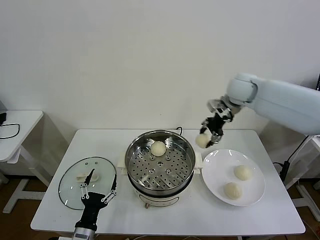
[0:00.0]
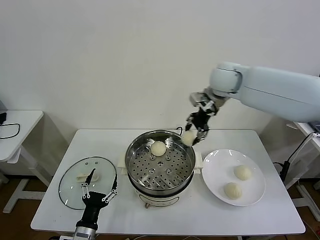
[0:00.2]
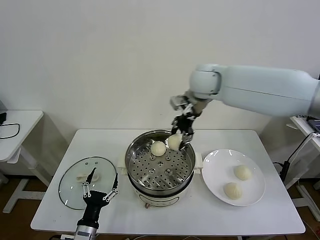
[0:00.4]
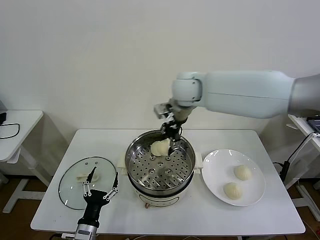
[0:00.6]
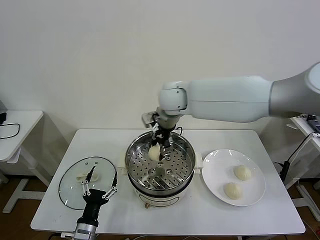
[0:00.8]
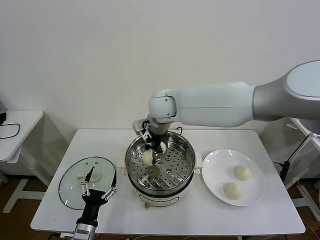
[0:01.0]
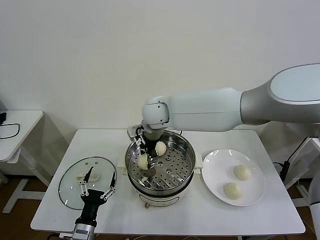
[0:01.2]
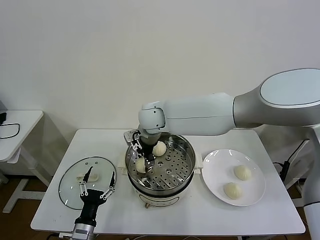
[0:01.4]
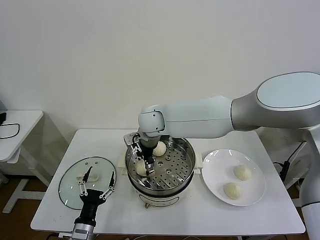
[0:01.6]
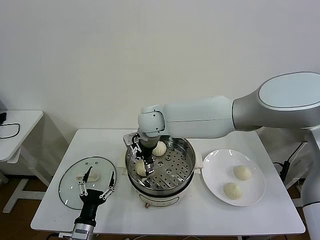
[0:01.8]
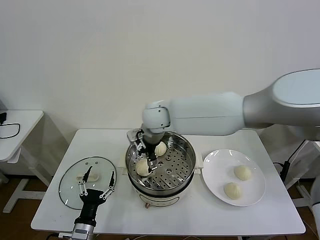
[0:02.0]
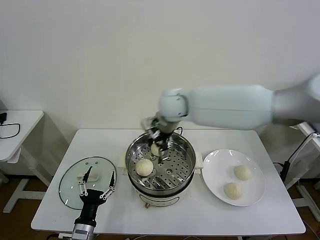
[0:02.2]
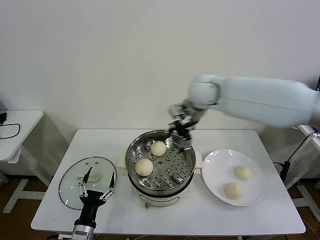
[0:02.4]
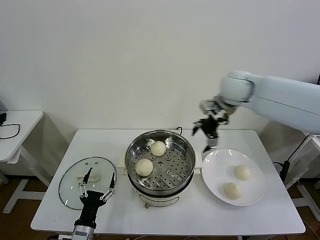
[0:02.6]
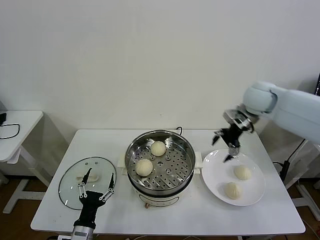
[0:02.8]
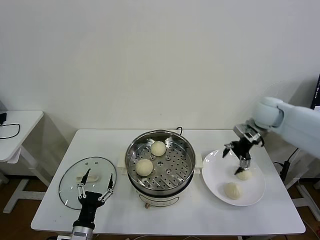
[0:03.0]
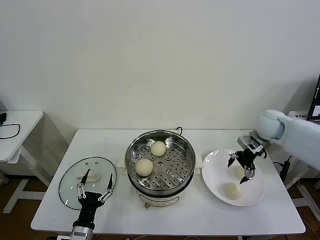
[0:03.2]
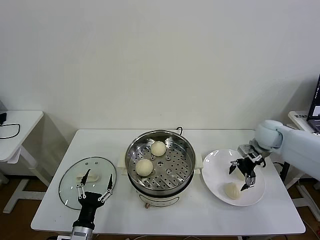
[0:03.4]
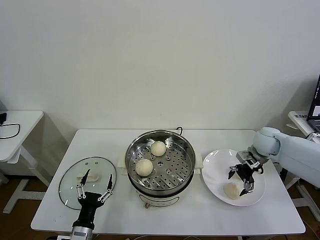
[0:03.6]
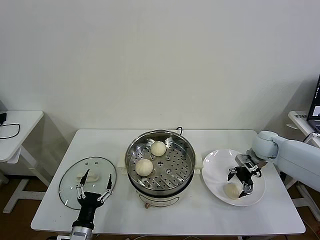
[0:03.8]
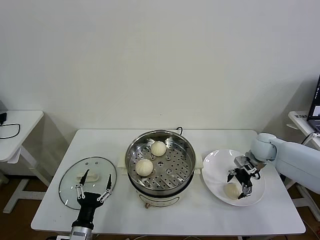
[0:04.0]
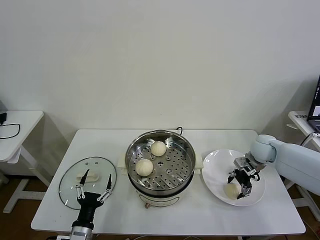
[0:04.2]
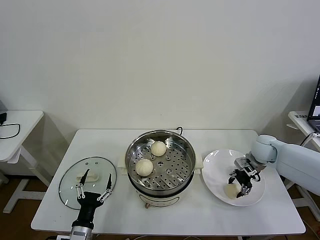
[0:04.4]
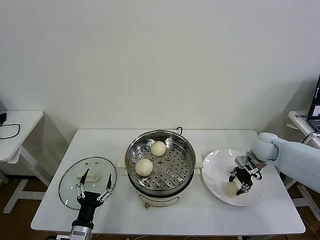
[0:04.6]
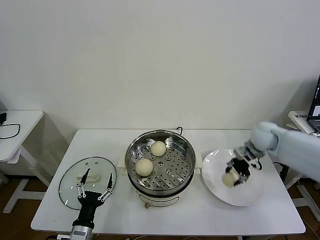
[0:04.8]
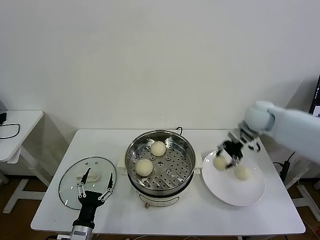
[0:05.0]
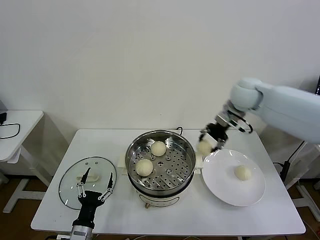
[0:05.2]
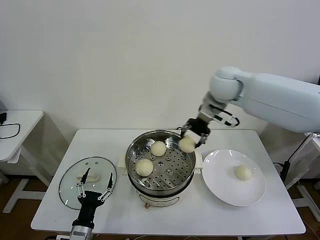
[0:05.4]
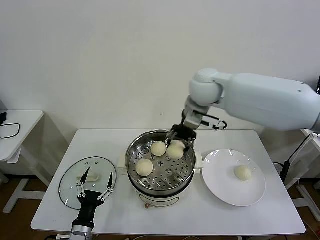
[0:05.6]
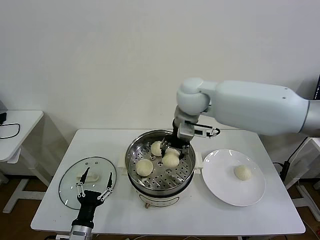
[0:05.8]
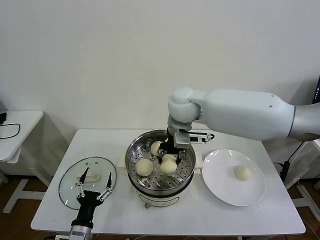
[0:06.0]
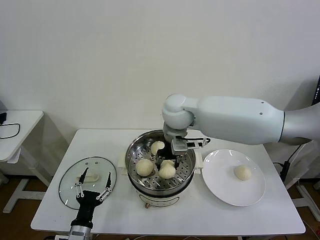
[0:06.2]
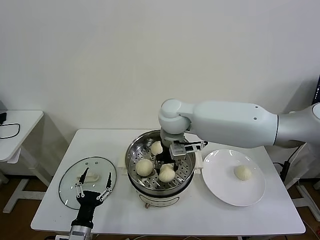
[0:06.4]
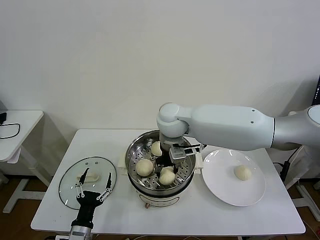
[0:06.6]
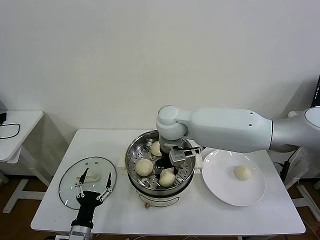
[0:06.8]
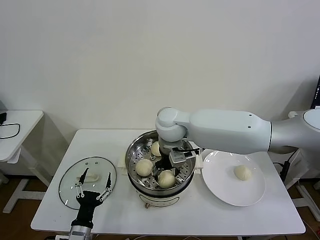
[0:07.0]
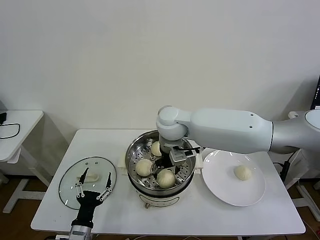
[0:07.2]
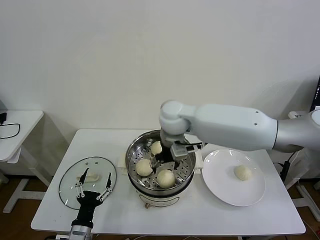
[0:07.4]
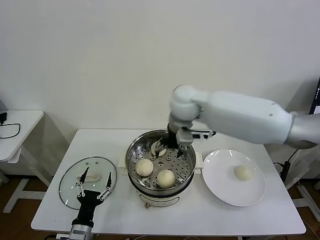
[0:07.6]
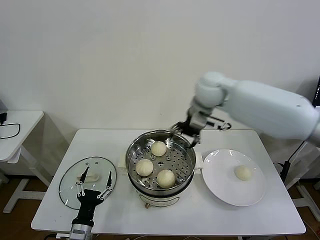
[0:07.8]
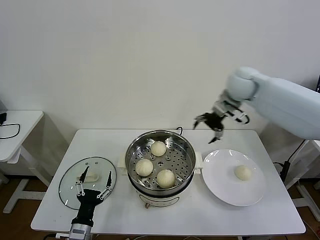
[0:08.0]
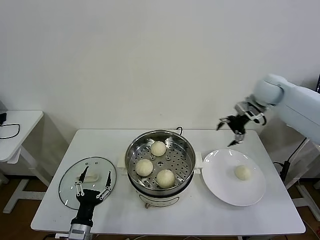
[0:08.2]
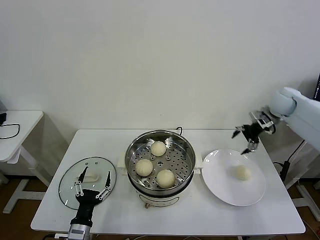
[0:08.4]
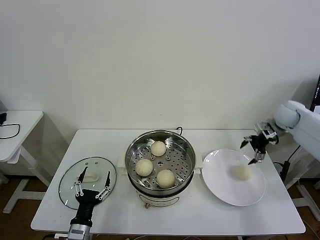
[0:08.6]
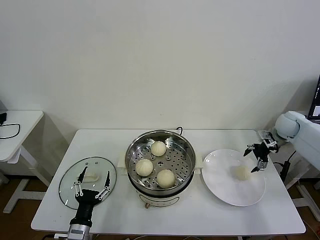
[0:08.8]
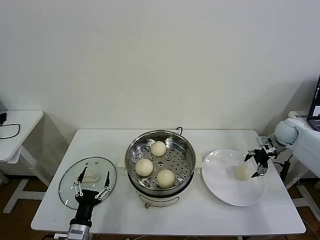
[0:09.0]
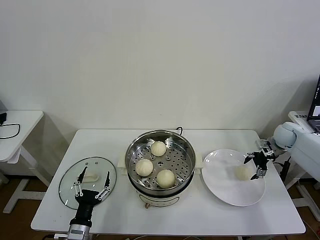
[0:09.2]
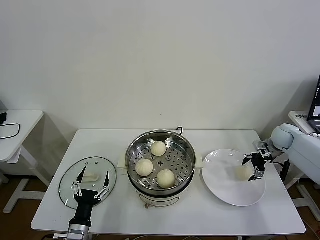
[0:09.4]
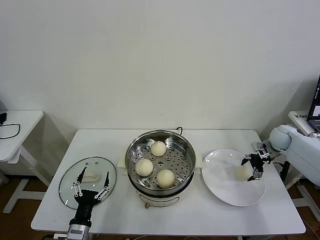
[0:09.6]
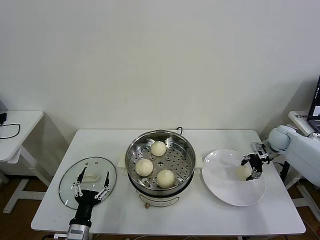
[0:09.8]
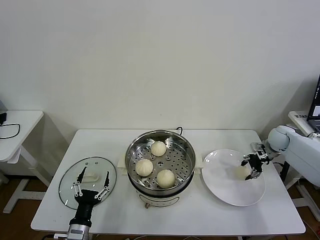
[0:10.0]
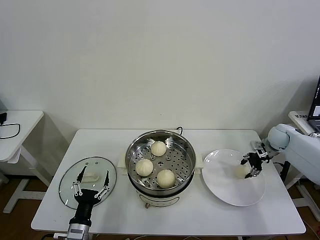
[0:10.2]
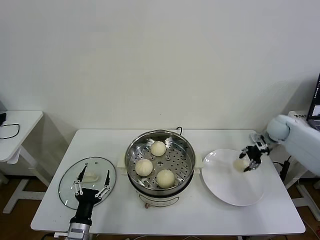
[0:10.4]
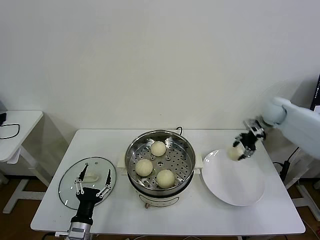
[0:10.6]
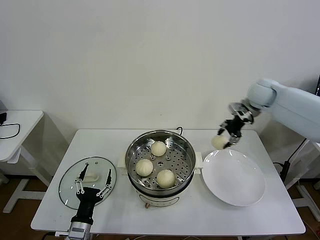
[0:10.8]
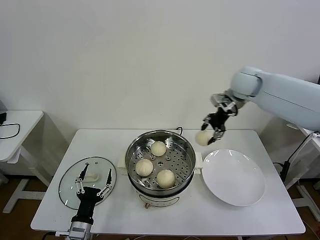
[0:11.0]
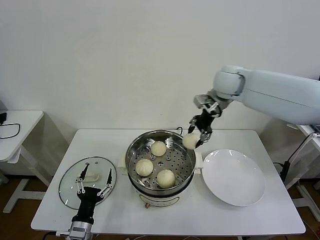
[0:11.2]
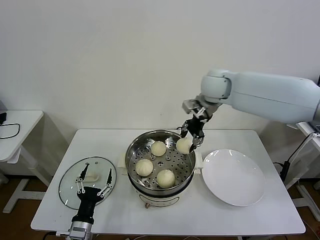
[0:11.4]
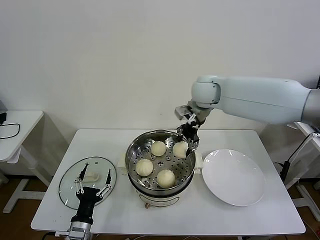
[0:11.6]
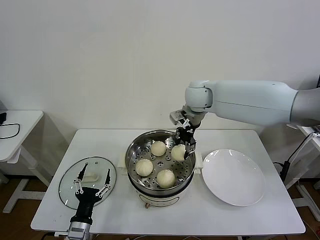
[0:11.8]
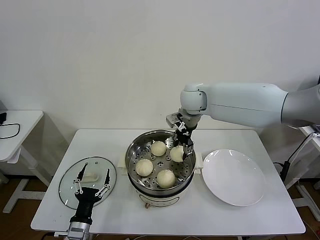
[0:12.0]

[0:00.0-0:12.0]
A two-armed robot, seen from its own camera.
Task of the whole recording: take steamed baozi put them in steamer then cover it.
Step, 0:00.0 to 0:02.2: Place the baozi on the steamer with right gripper.
Step, 0:02.4 to 0:04.6: Grasp the baozi in the plate with right gripper.
Step, 0:04.8 to 0:07.6: Place the baozi on the steamer with right gripper.
Step, 0:07.8 to 0:10.2: Grasp the baozi in the plate with right gripper.
0:00.0 to 0:01.6: The right gripper shifts roughly 30 cm to the left, and opens up.
0:01.6 to 0:03.0: The right gripper goes some 40 cm to the right.
0:03.0 to 0:04.4: The right gripper heads downward, covering approximately 15 cm, and closes.
0:04.4 to 0:06.0: The right gripper heads to the left and upward, covering about 35 cm.
0:06.0 to 0:07.6: The right gripper opens up.
0:07.6 to 0:09.0: The right gripper travels to the right by approximately 40 cm.
0:09.0 to 0:10.4: The right gripper closes.
0:10.4 to 0:12.0: The right gripper goes about 35 cm to the left.

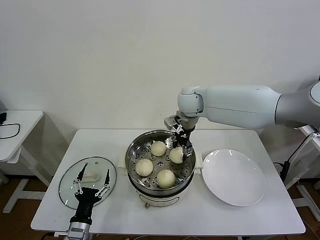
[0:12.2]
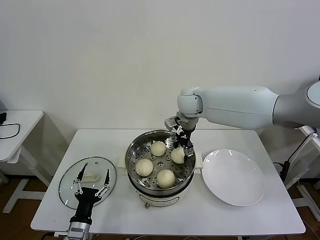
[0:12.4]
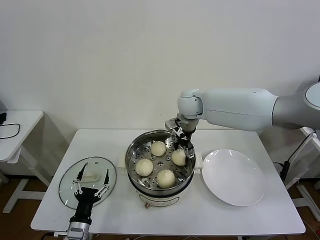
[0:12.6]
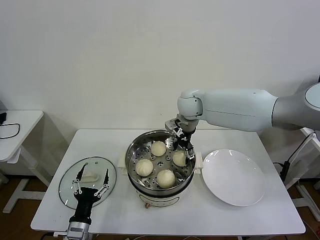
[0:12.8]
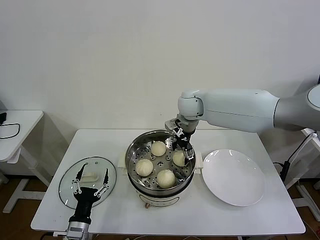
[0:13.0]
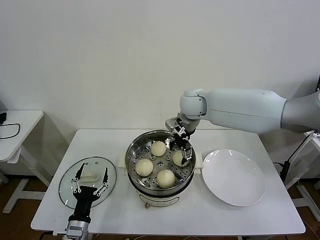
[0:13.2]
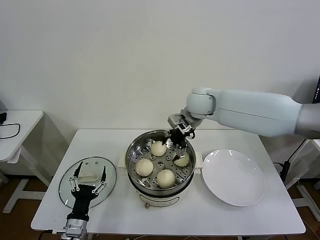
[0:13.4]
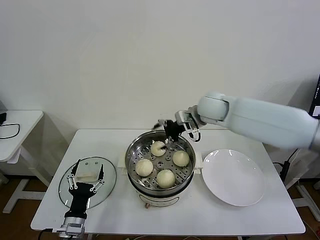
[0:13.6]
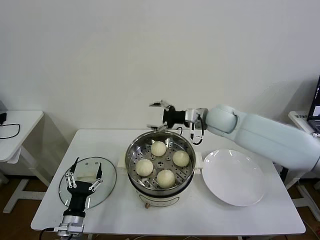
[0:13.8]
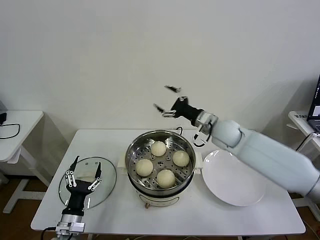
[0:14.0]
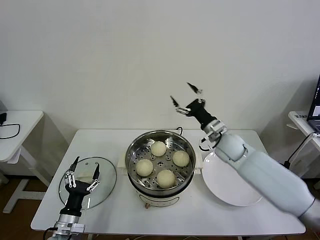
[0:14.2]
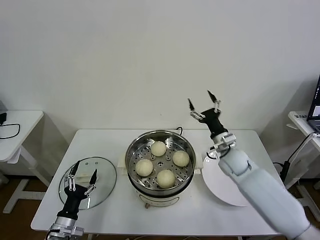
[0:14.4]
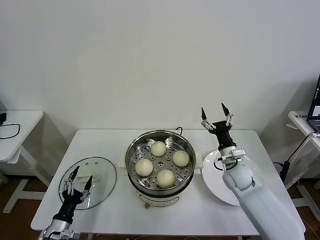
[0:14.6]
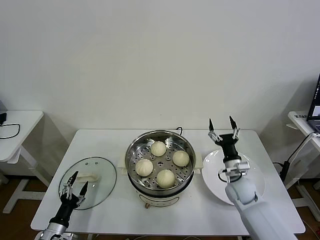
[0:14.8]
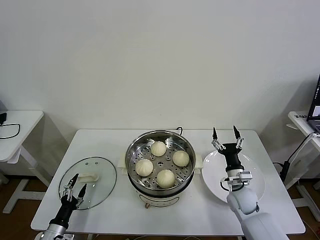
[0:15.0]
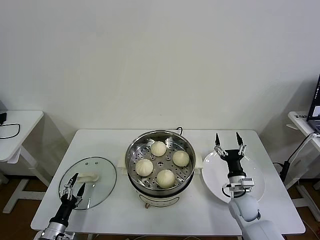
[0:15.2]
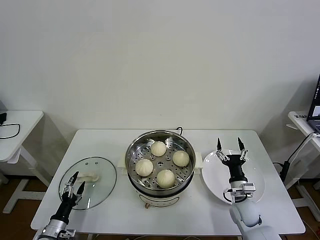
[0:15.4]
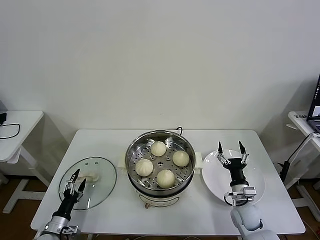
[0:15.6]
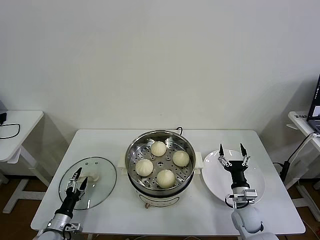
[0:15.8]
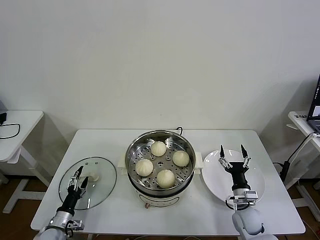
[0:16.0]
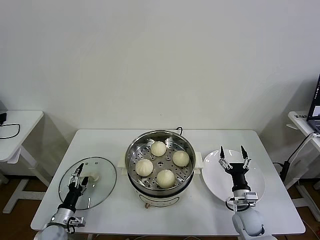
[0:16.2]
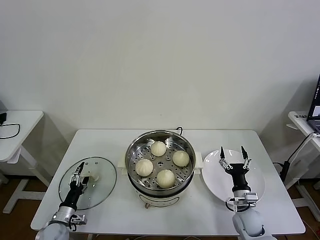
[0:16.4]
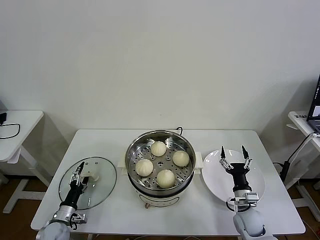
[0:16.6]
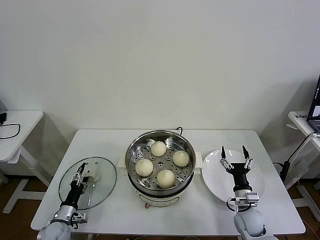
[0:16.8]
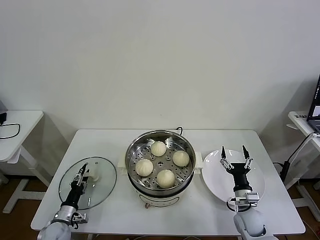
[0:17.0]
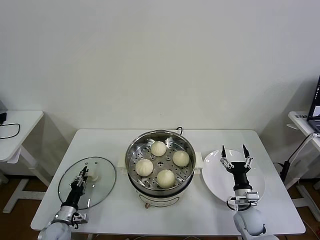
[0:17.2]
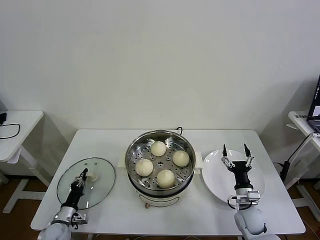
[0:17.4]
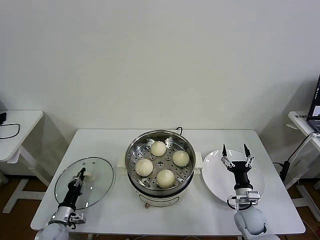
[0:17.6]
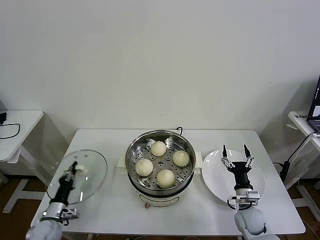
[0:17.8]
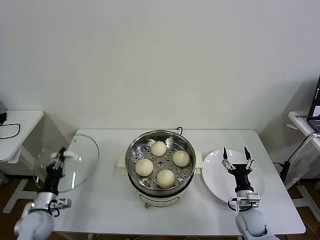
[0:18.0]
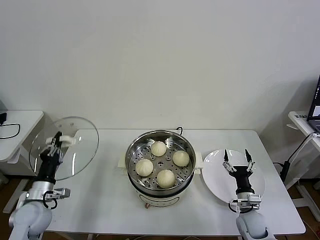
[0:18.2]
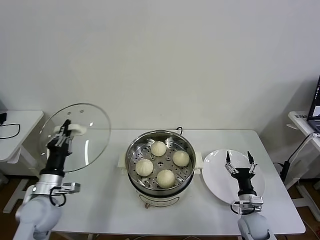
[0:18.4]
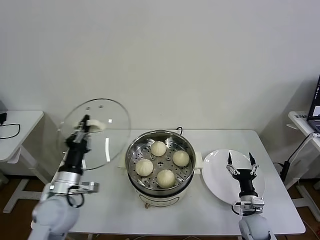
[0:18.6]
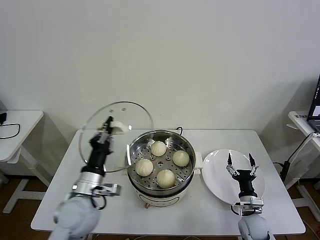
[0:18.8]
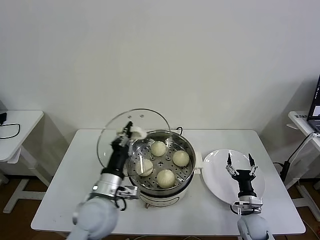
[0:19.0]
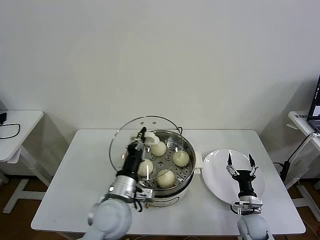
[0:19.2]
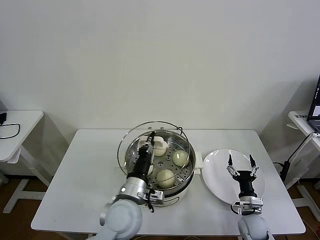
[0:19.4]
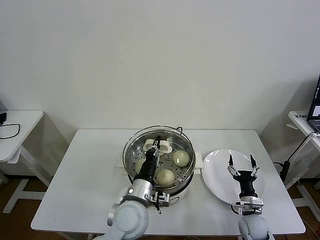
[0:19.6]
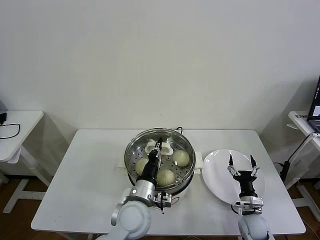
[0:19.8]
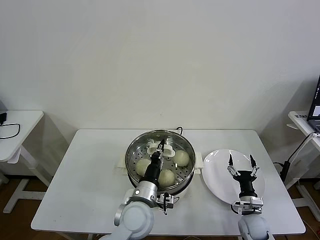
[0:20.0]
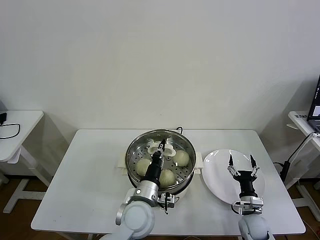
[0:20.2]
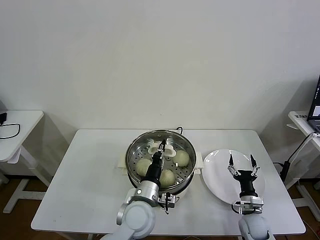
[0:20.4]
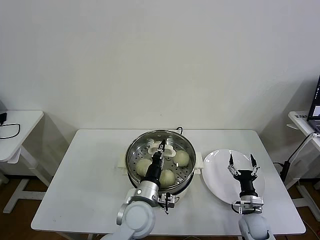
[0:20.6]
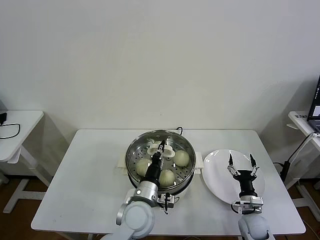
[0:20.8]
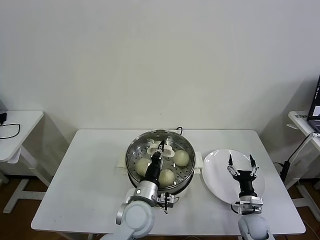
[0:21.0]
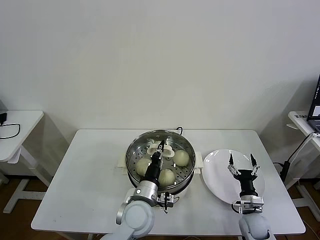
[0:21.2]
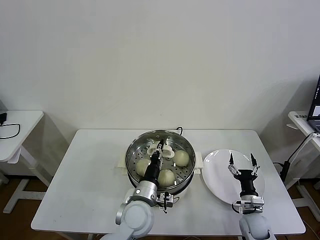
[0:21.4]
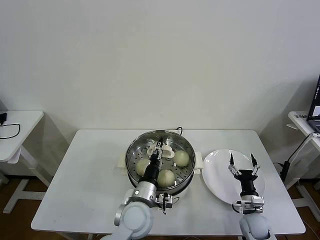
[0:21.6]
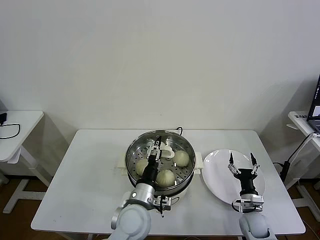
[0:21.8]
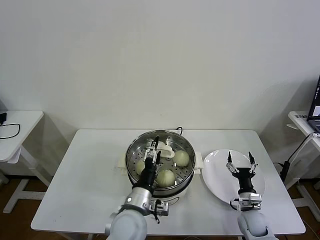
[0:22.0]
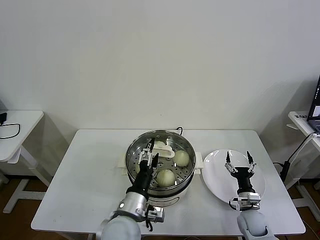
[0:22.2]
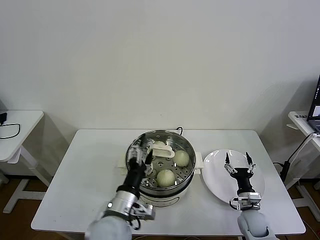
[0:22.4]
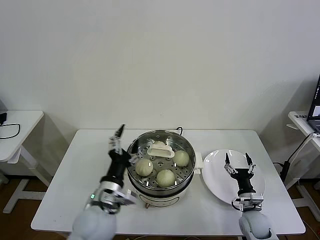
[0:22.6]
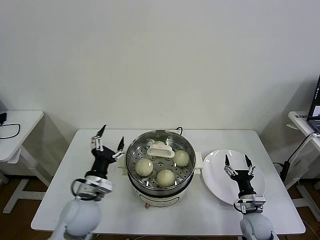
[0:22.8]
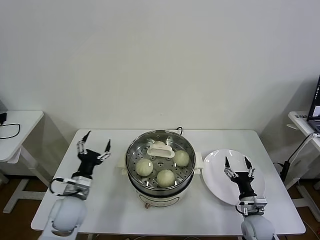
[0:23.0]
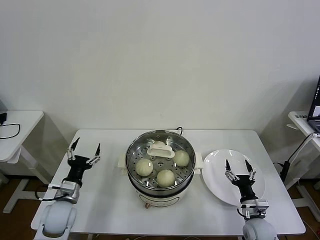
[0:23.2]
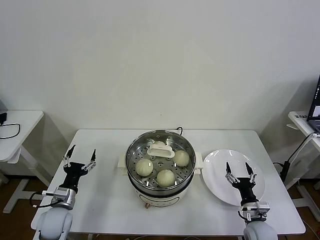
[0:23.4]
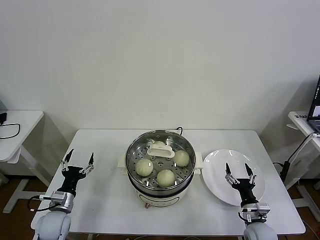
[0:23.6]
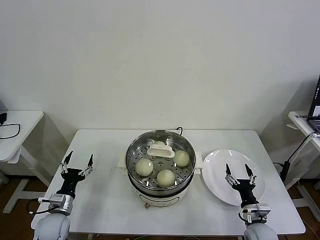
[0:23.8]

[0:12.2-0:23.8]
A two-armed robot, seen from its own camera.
Task of the whole recording: take steamed baozi put them in steamer then cover it.
Step, 0:13.6 to 0:17.4: Grasp the pot lid with left gripper.
Step, 0:17.6 to 0:22.2: Place the pot lid on the steamer with left gripper.
0:12.2 to 0:13.6: The right gripper is displaced to the right by roughly 5 cm, and opens its fingers.
0:13.6 to 0:15.0: The right gripper goes roughly 35 cm downward, backward and to the right; the left gripper shifts roughly 15 cm to the left and downward.
0:15.0 to 0:16.6: The right gripper heads backward and downward, covering about 10 cm, while the left gripper heads forward, covering approximately 5 cm.
0:16.6 to 0:18.0: The left gripper shifts about 10 cm upward, and closes its fingers.
0:18.0 to 0:19.4: The left gripper heads to the right and upward, covering approximately 35 cm.
0:19.4 to 0:21.0: The left gripper changes place by approximately 5 cm.
0:21.0 to 0:22.4: The left gripper shifts about 10 cm backward and upward, and opens its fingers.
0:22.4 to 0:23.8: The left gripper goes some 30 cm to the left and downward, while the right gripper moves approximately 5 cm.
